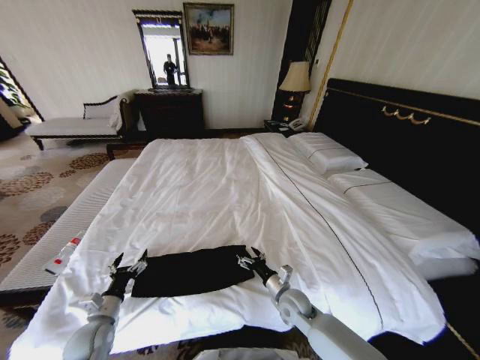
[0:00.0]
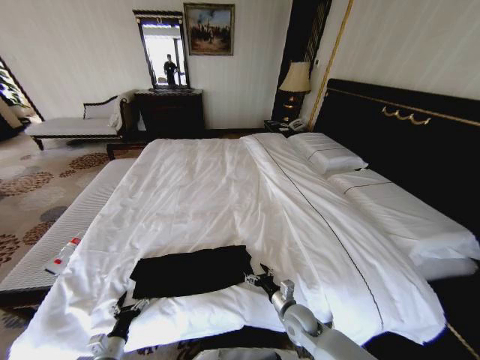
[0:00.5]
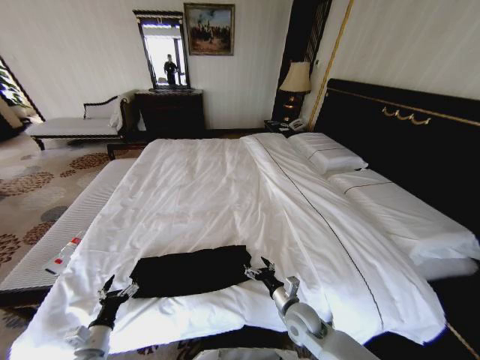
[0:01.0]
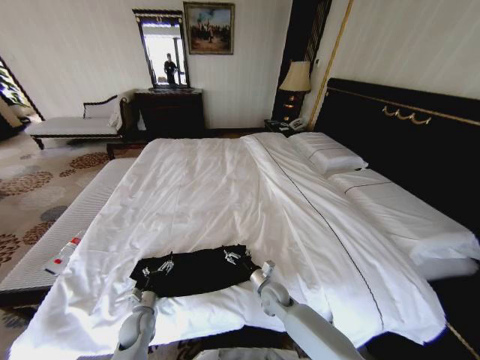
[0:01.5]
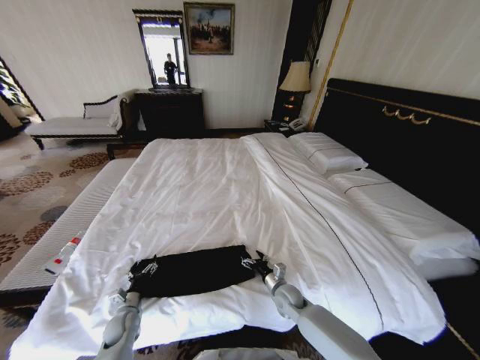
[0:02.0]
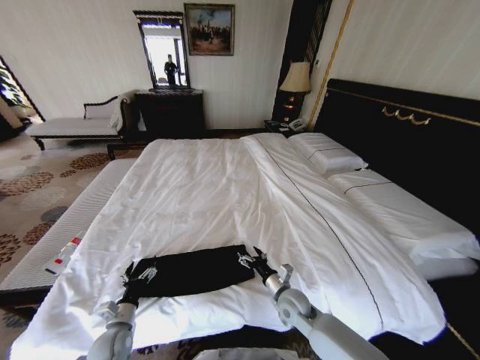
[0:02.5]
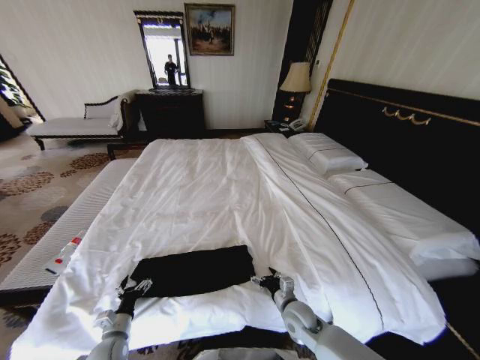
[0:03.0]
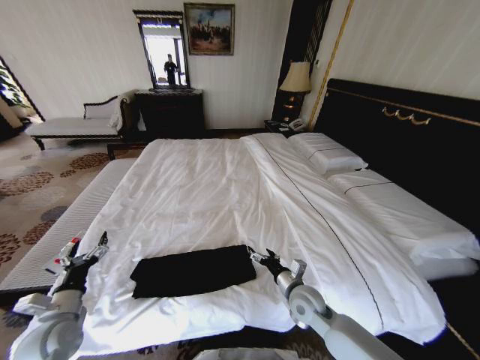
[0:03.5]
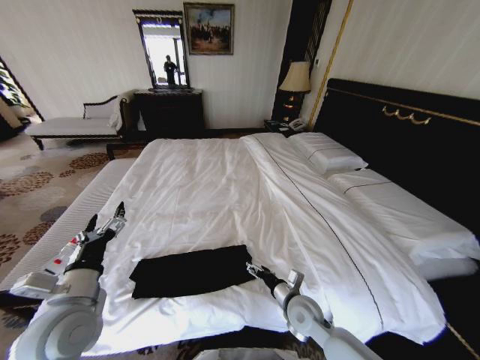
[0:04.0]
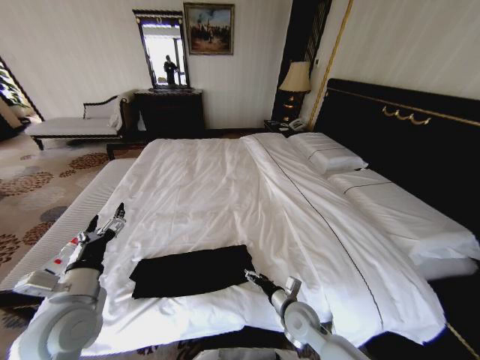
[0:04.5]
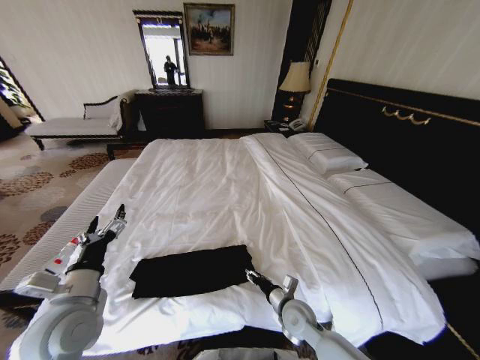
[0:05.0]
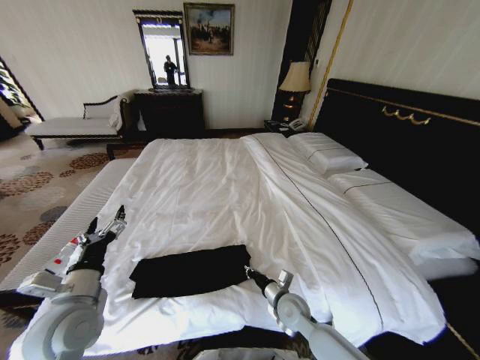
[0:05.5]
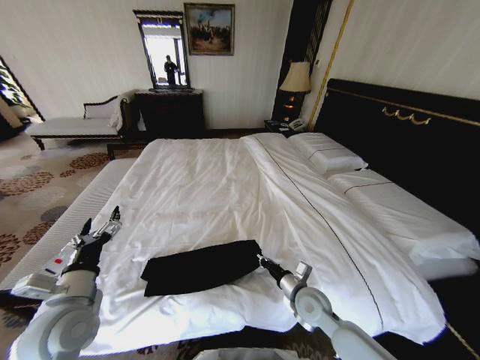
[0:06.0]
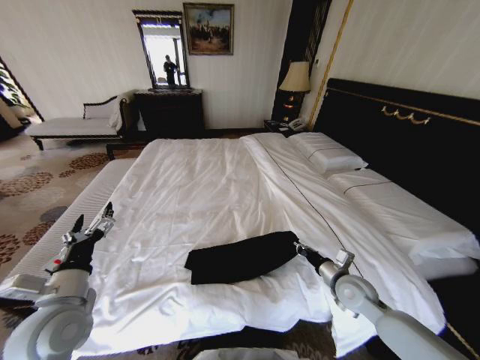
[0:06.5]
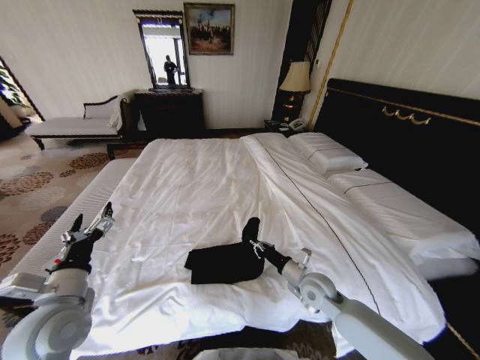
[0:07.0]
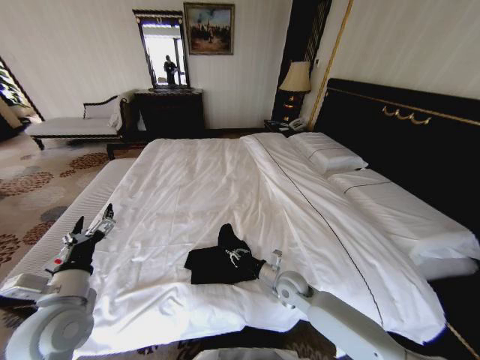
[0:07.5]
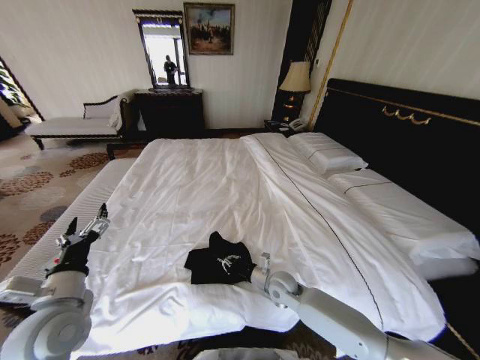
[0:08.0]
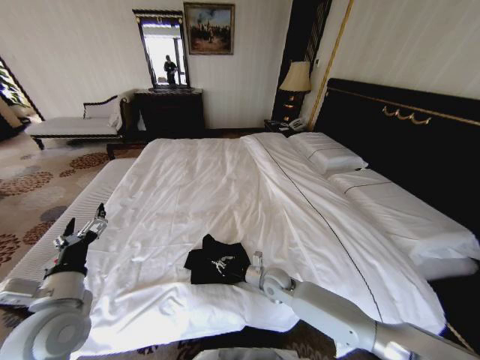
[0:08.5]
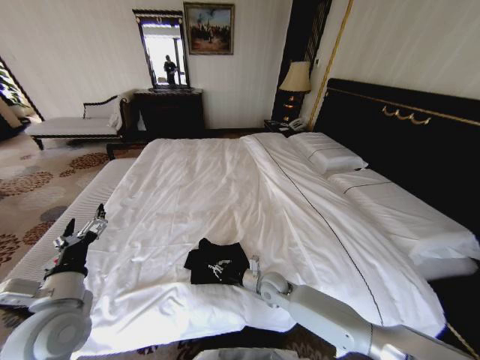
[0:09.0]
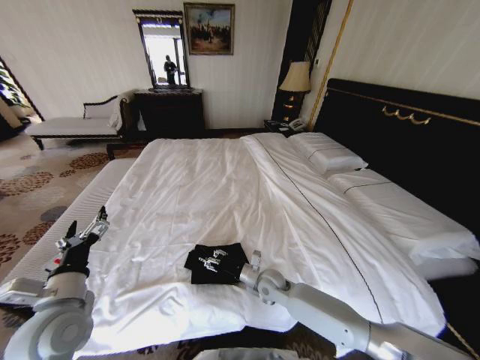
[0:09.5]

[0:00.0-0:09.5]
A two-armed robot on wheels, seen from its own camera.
Task of the whole recording: Fold the clothes on the bed.
0:00.0 to 0:02.0: The right gripper travels downward by about 5 cm, and travels backward and back again, roughly 5 cm each way; the left gripper shifts about 10 cm downward, and reaches about 10 cm backward, then returns.
0:02.0 to 0:04.0: The left gripper moves up and down over roughly 30 cm, changing direction 2 times, while the right gripper goes some 10 cm upward and backward.
0:04.0 to 0:05.5: The right gripper closes.
0:05.5 to 0:07.5: The right gripper moves forward, roughly 5 cm, and travels to the right and back again, about 15 cm each way.
0:07.5 to 0:09.5: The right gripper is displaced to the left by about 5 cm, and opens its fingers.

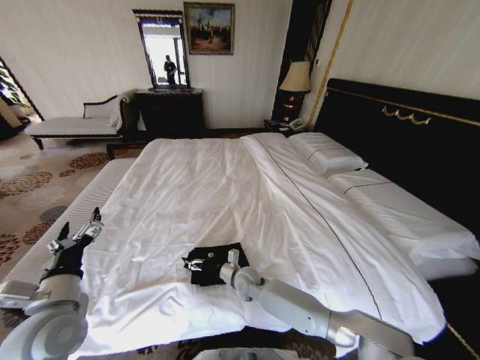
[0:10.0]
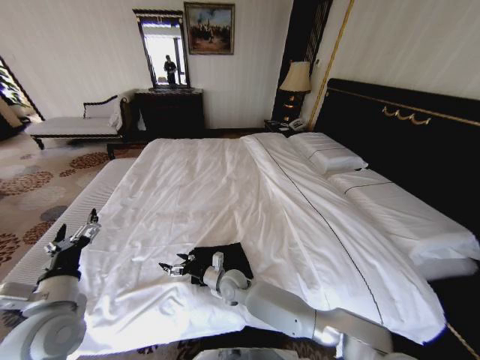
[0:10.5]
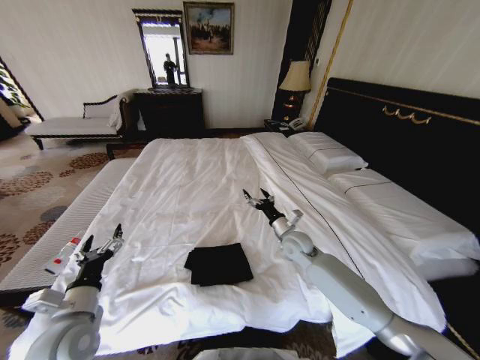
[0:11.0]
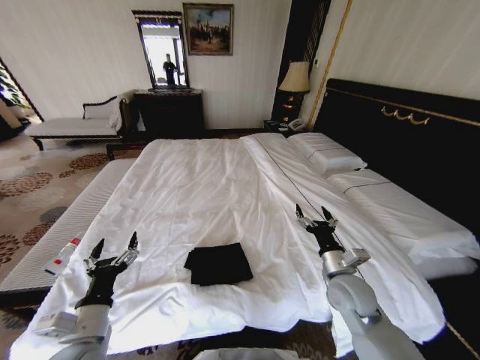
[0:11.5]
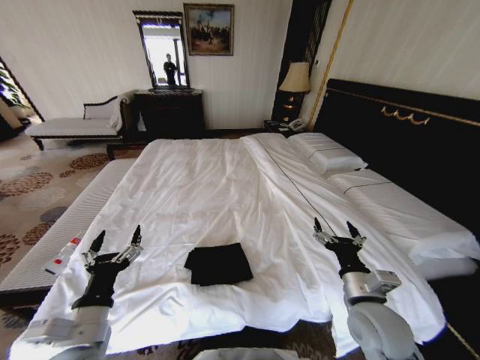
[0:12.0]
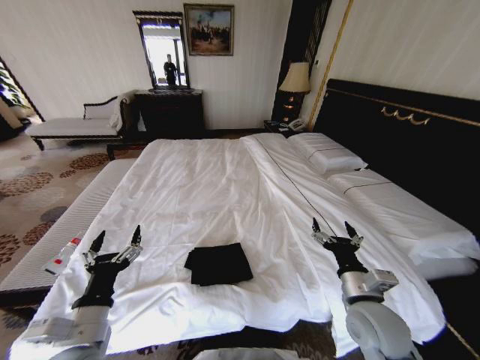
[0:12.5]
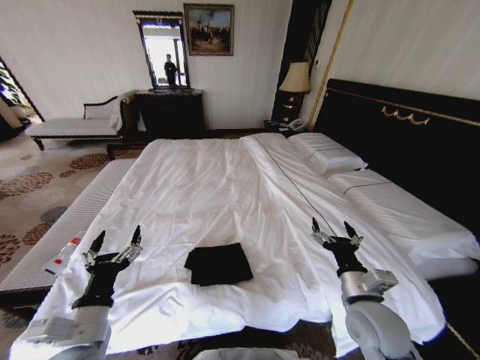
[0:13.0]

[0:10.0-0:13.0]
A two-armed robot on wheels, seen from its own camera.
Task of the whole recording: Fold the clothes on the bed.
0:10.0 to 0:11.5: The left gripper changes place by some 10 cm. Meanwhile the right gripper heads to the right and upward, covering roughly 25 cm.
0:11.5 to 0:13.0: The right gripper is displaced backward by some 5 cm.
